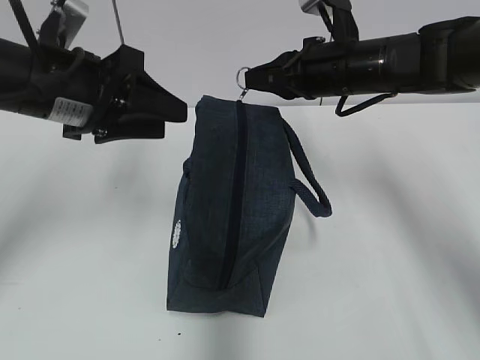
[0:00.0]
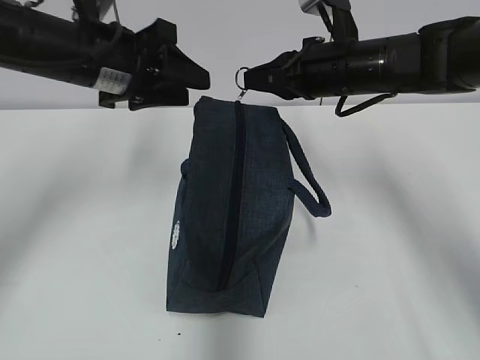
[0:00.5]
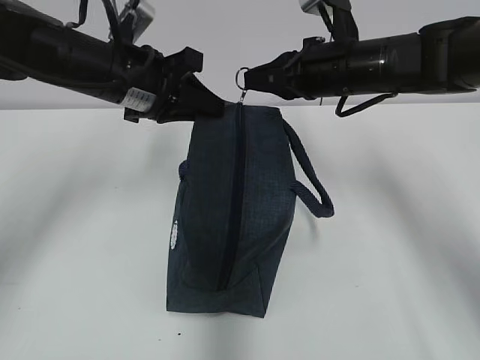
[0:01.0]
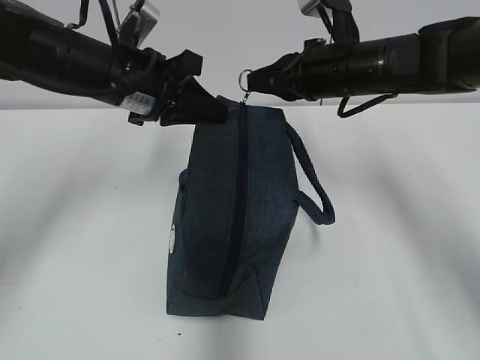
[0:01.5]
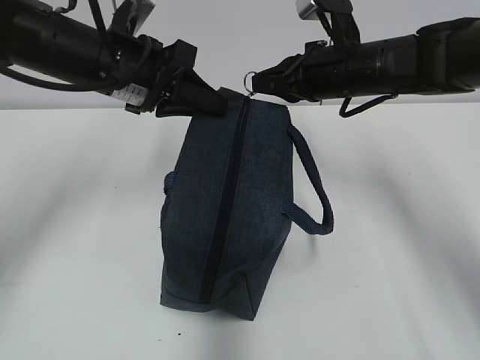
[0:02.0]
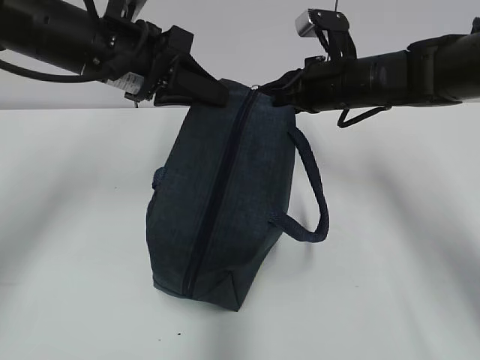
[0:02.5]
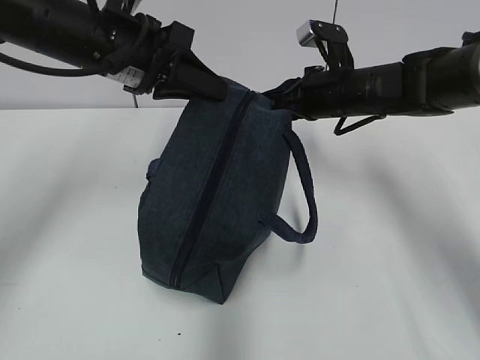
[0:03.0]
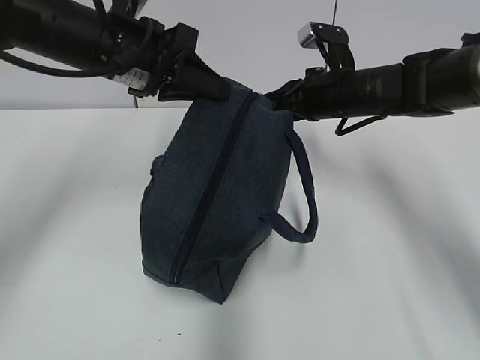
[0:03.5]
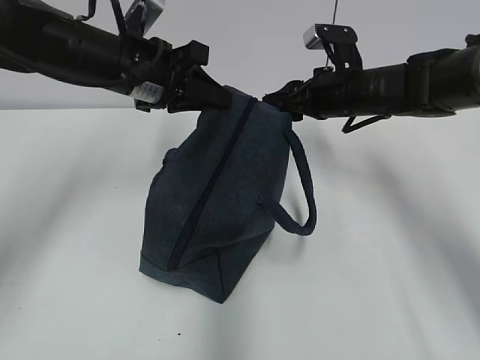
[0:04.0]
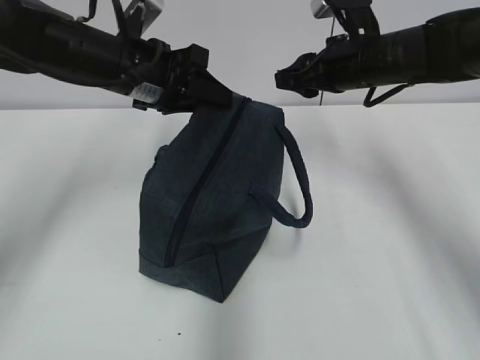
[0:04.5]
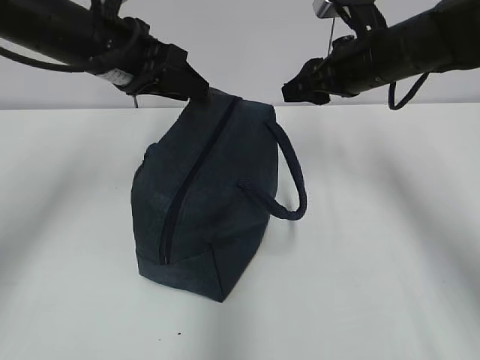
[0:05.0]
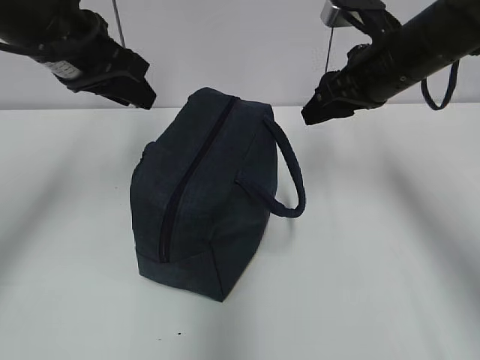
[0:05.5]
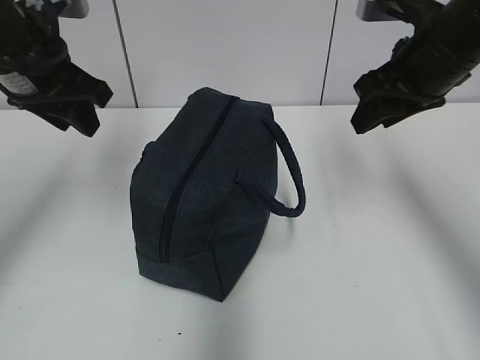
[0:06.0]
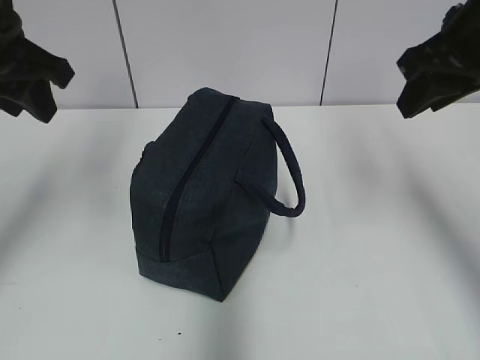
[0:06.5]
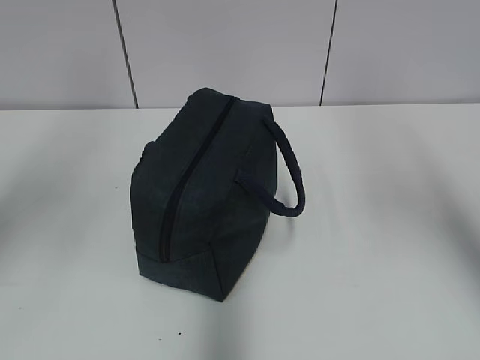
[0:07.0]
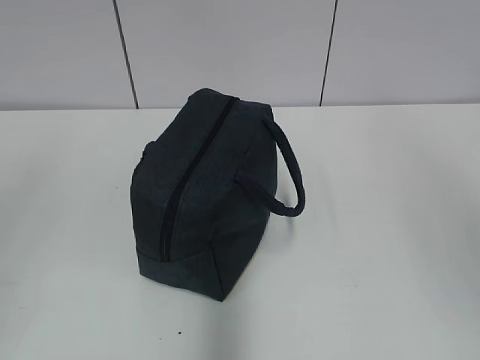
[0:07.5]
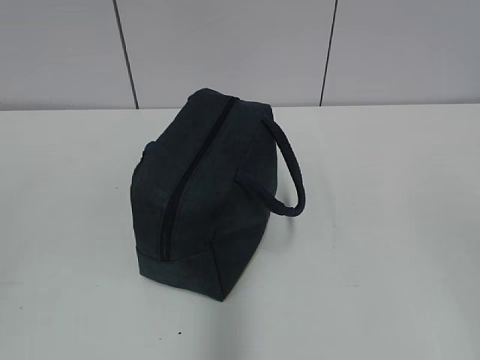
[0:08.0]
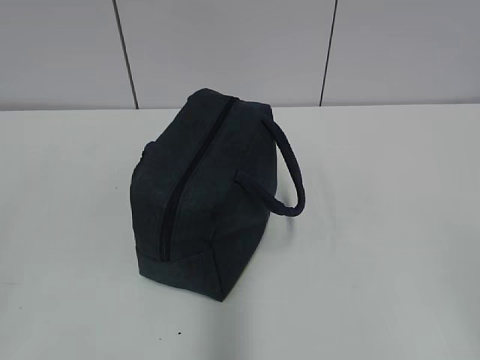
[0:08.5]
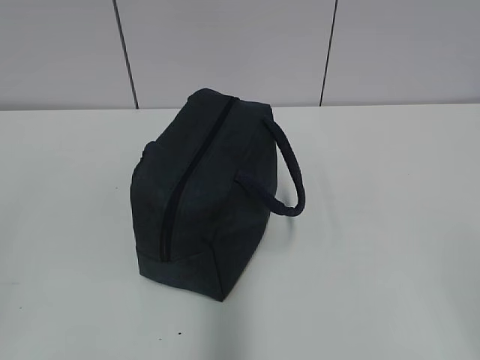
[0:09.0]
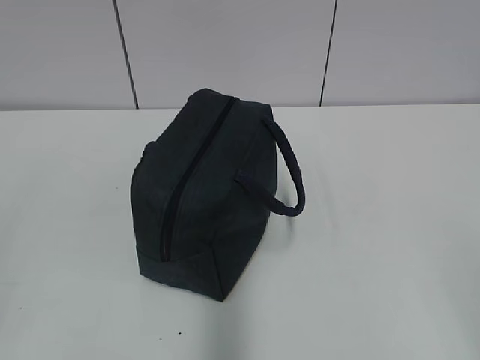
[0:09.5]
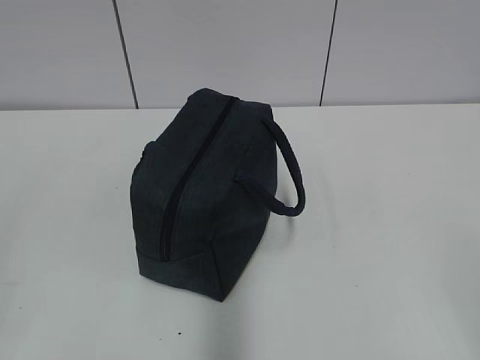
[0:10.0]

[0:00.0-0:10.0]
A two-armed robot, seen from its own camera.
Step, 0:00.0 to 0:03.5: Pull the zipper with your right hand.
0:00.0 to 0:02.0: The left gripper travels forward by about 5 cm, and closes.
0:02.0 to 0:04.0: The right gripper moves roughly 5 cm, and opens its fingers.
0:04.0 to 0:06.0: The right gripper goes approximately 15 cm upward and backward; the left gripper travels to the left by about 10 cm, and opens.
0:06.0 to 0:08.0: Both grippers travel together backward, about 40 cm.

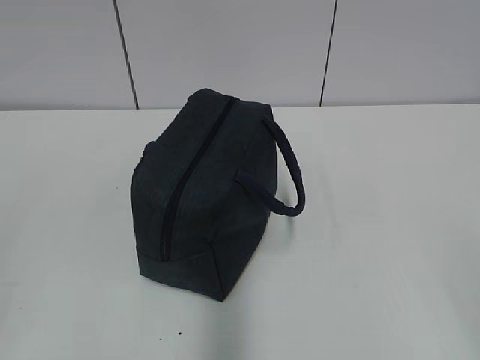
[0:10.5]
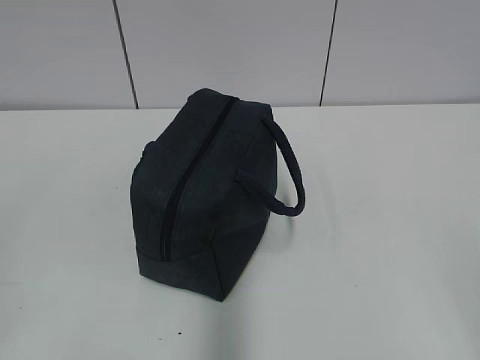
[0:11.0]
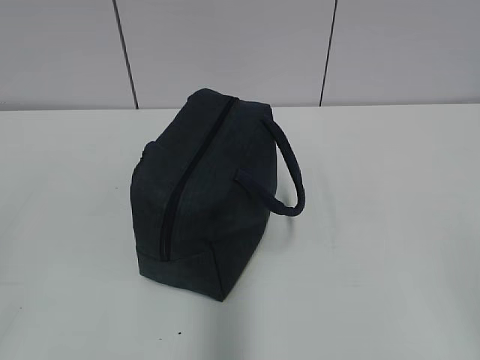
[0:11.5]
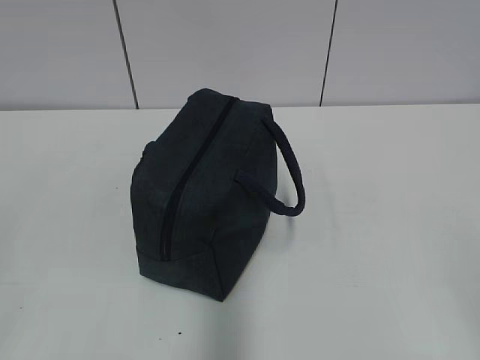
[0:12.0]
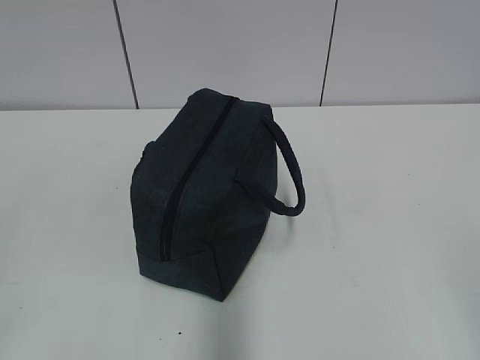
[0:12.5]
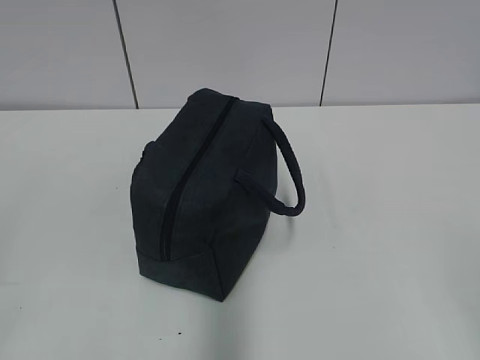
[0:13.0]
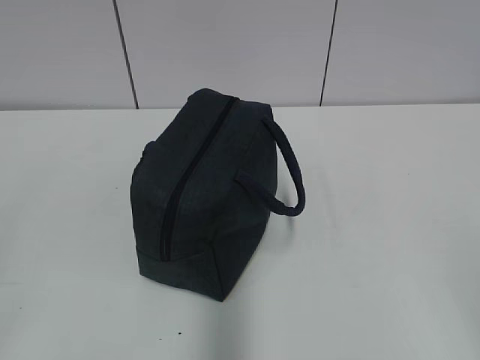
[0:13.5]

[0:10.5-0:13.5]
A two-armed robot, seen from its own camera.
0:12.0 to 0:13.5: Both grippers stay put.

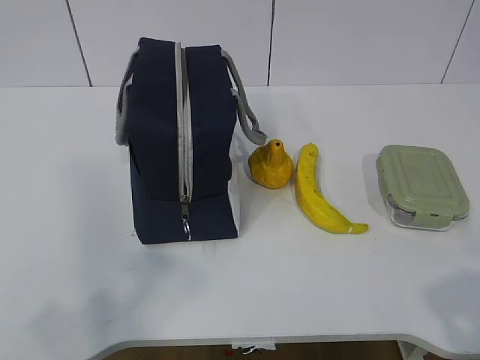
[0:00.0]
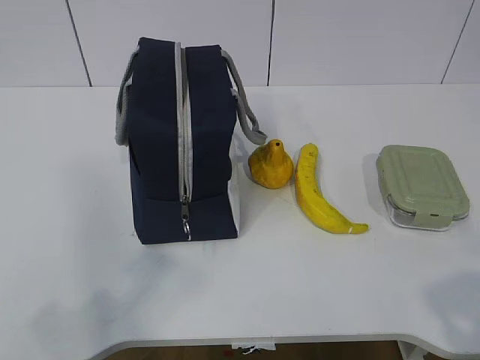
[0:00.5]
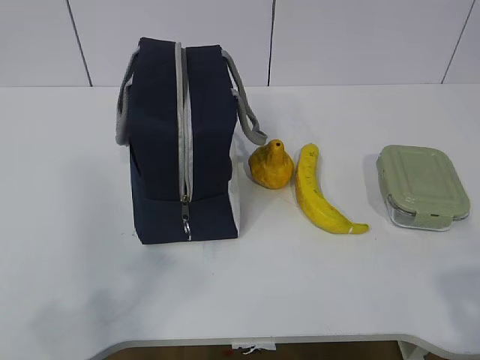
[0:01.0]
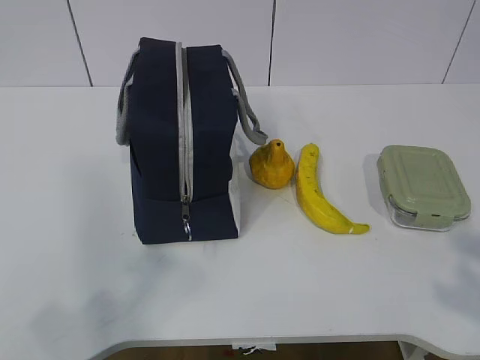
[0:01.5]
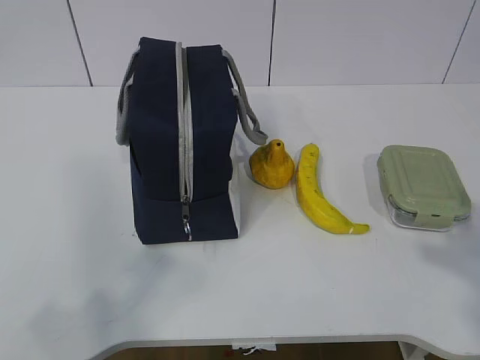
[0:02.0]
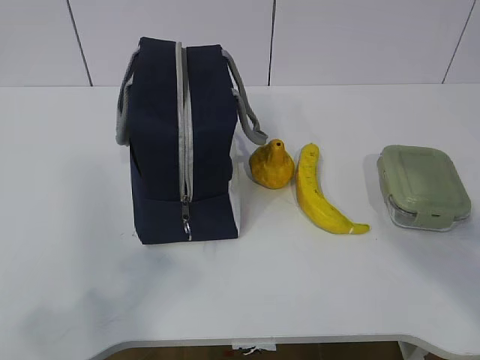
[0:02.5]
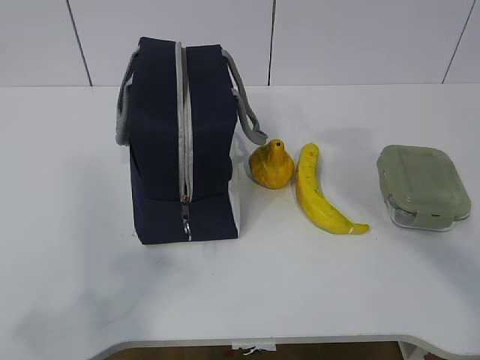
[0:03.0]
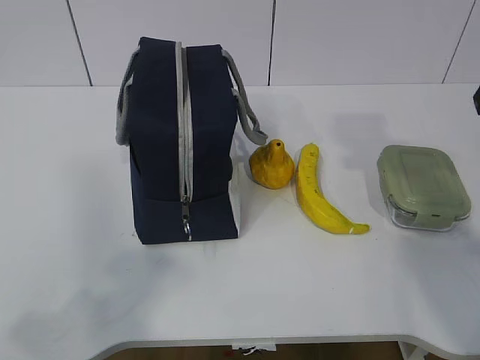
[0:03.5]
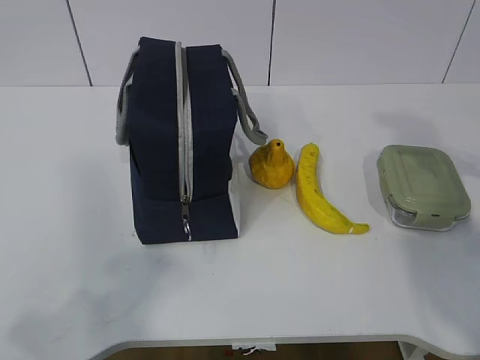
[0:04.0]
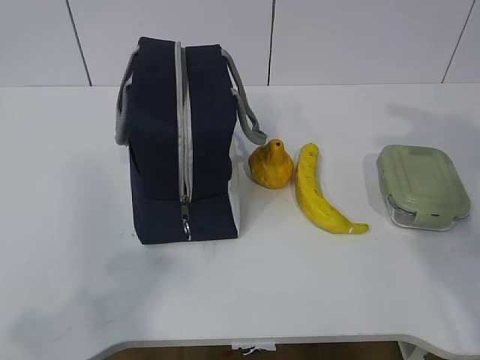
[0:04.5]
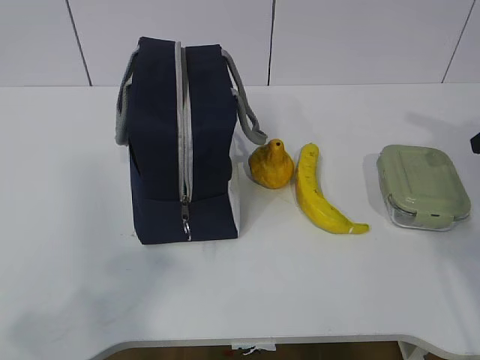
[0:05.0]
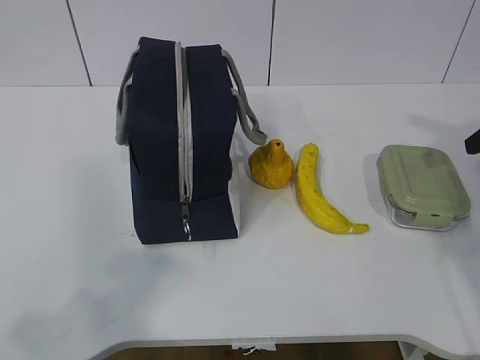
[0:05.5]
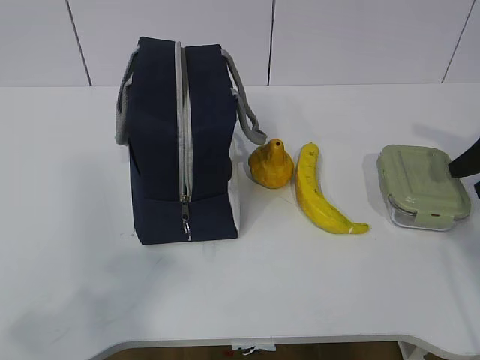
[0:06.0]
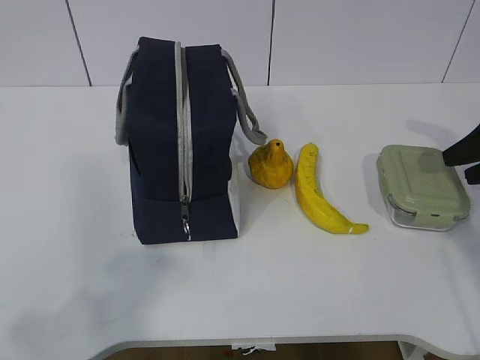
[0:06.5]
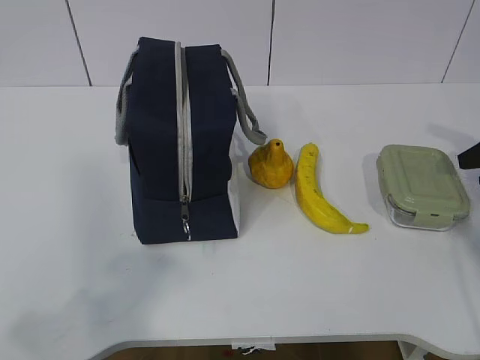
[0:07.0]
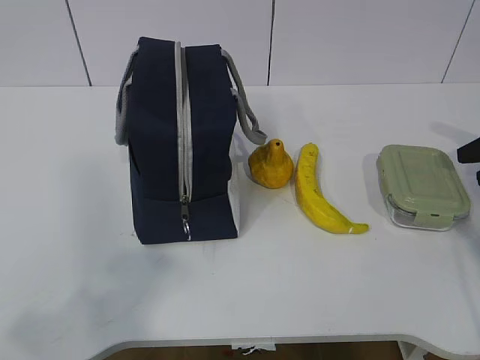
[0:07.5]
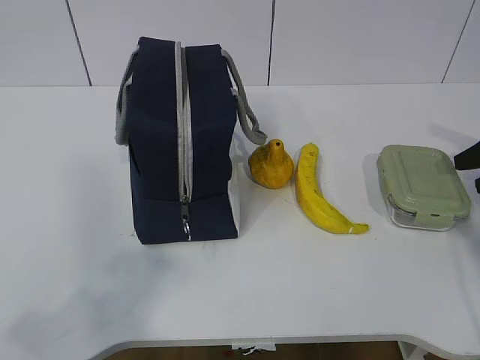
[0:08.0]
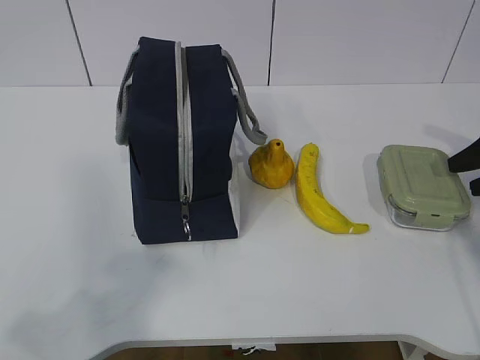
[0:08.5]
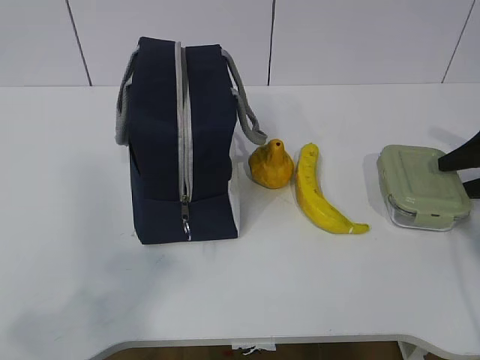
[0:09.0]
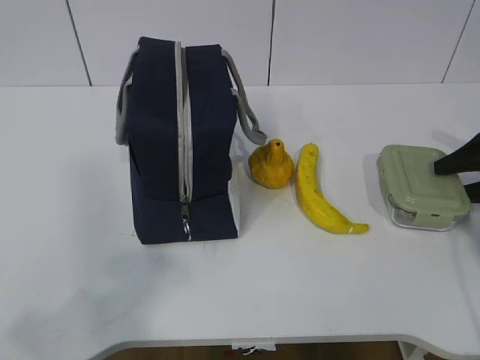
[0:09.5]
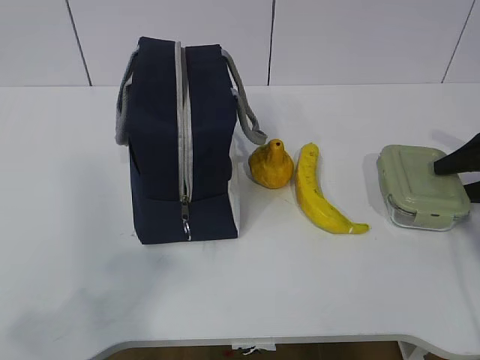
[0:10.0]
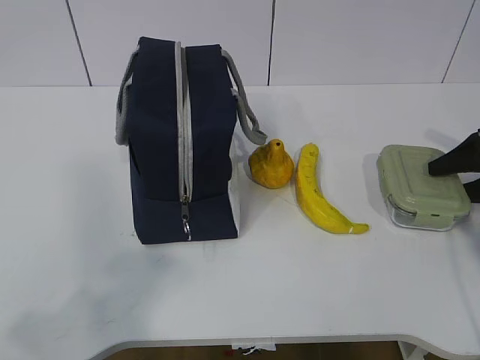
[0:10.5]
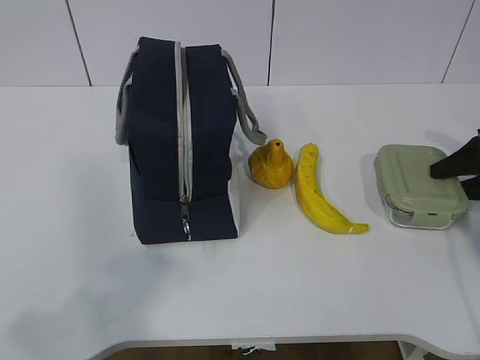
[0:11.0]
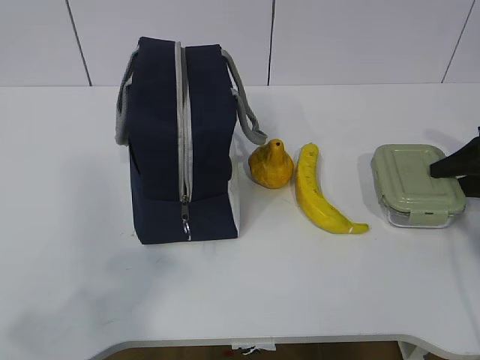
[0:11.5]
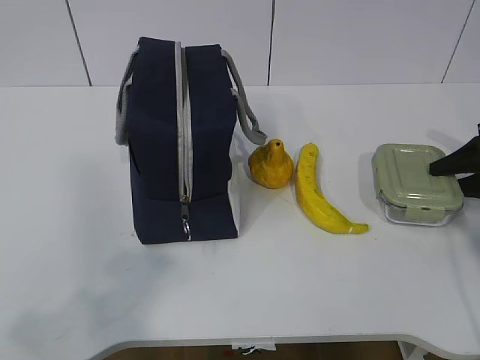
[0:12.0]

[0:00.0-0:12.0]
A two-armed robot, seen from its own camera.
Step, 0:00.0 to 0:09.5: Grab the lunch box with your right hand.
0:02.0 to 0:04.0: The right gripper moves forward, approximately 25 cm.
0:04.0 to 0:06.0: The right gripper is displaced downward, to the right and forward by about 15 cm.
0:10.0 to 0:12.0: The right gripper closes up.

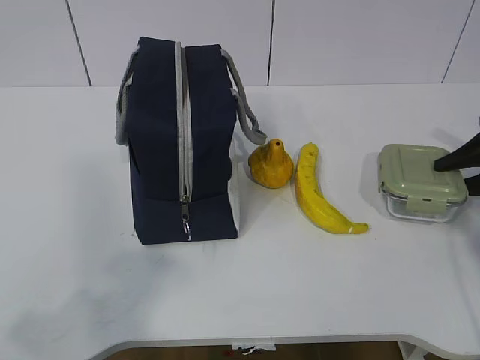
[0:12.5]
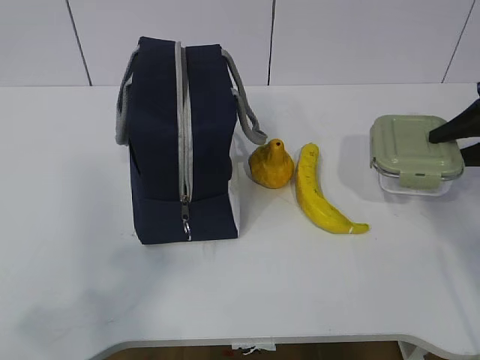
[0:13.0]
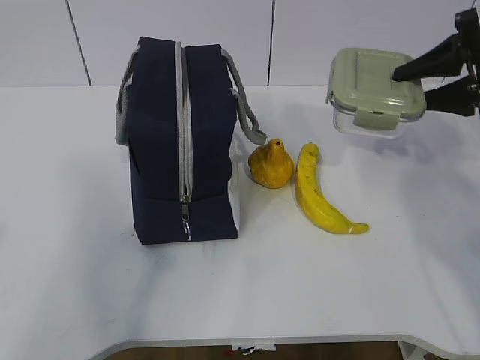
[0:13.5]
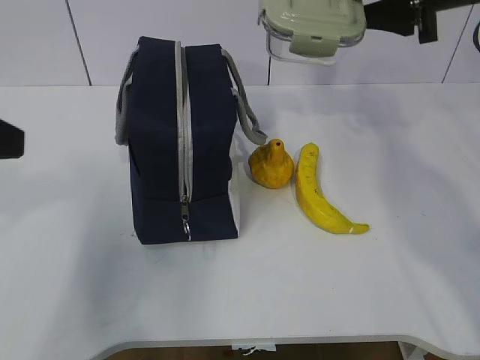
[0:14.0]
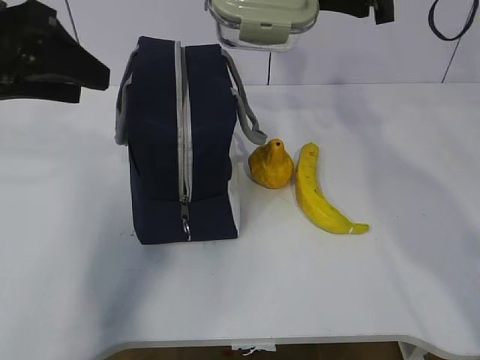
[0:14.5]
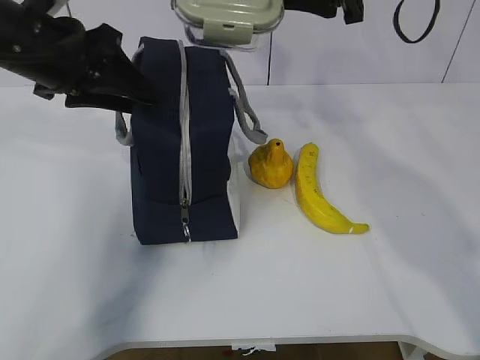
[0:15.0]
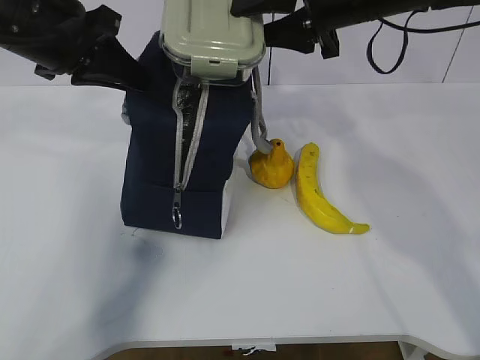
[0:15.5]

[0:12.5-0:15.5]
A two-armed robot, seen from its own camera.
Step, 0:13.0 to 0:15.0: Place it into the bag with your right hand.
0:12.5 to 0:14.0: The left gripper moves forward, approximately 20 cm; the right gripper moves upward and to the left, some 25 cm.
0:14.0 to 0:15.5: The right gripper heads to the left, covering some 10 cm. Meanwhile the left gripper goes roughly 15 cm forward, and closes up.
